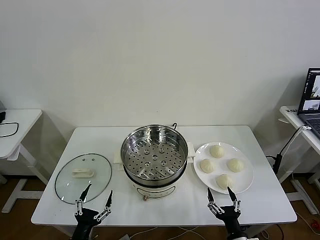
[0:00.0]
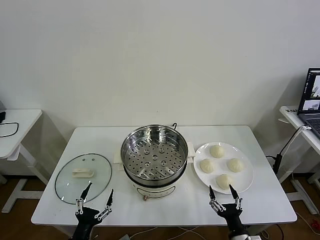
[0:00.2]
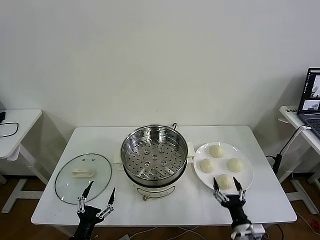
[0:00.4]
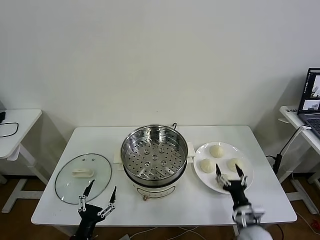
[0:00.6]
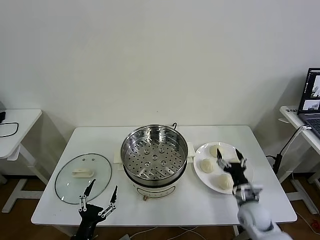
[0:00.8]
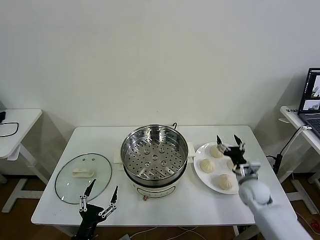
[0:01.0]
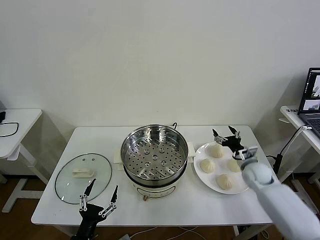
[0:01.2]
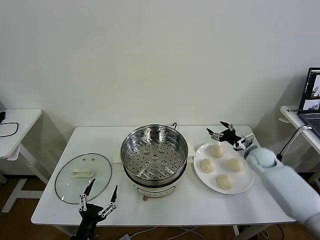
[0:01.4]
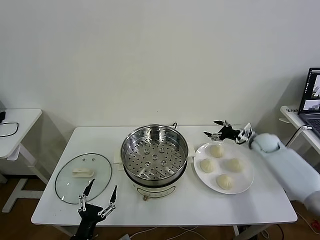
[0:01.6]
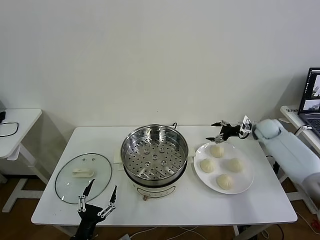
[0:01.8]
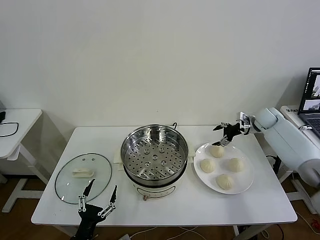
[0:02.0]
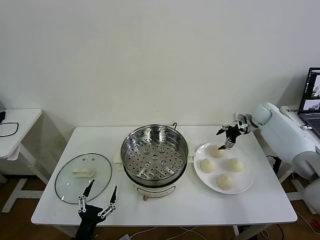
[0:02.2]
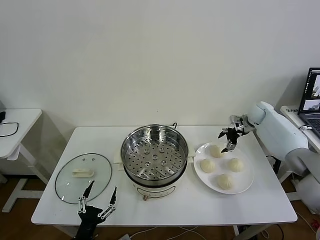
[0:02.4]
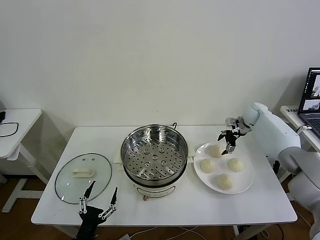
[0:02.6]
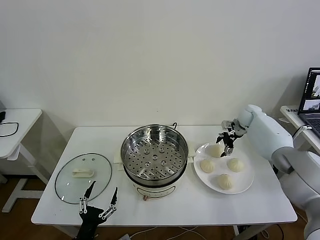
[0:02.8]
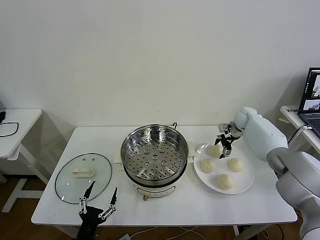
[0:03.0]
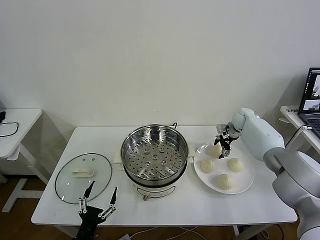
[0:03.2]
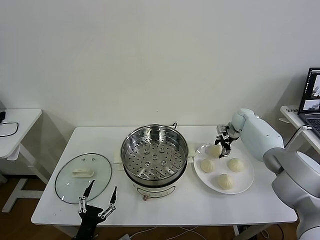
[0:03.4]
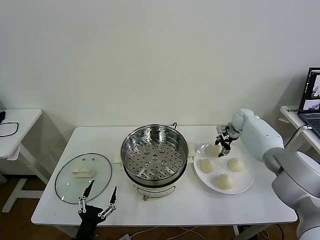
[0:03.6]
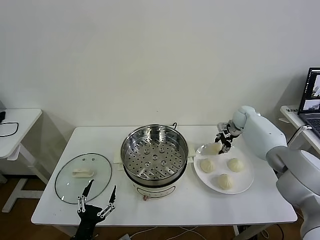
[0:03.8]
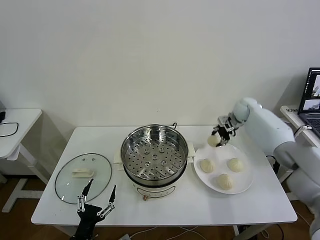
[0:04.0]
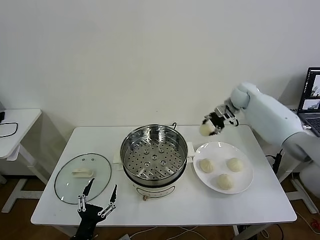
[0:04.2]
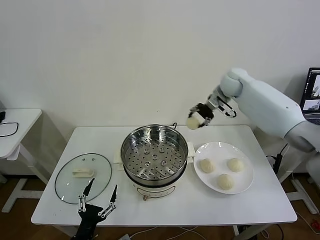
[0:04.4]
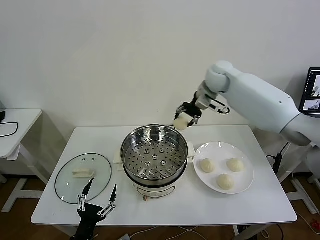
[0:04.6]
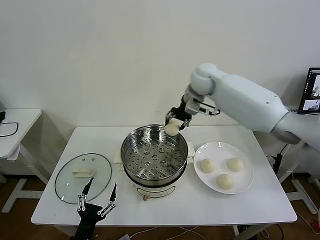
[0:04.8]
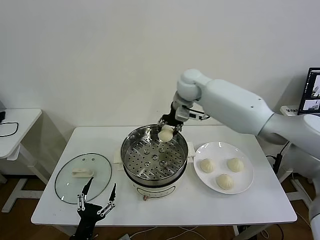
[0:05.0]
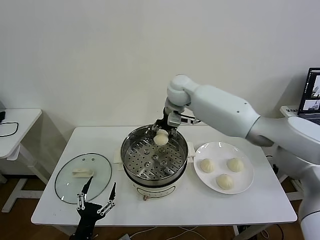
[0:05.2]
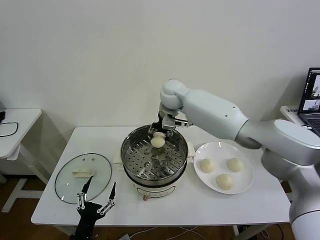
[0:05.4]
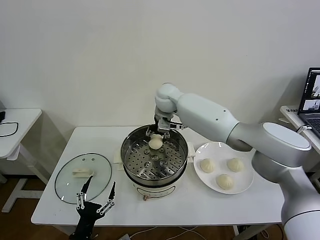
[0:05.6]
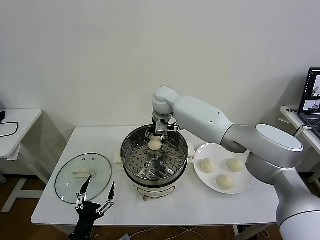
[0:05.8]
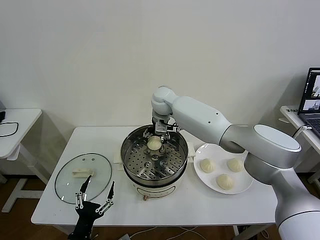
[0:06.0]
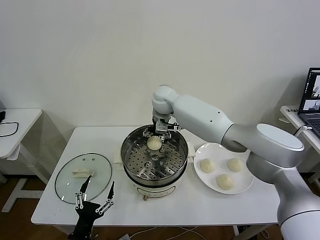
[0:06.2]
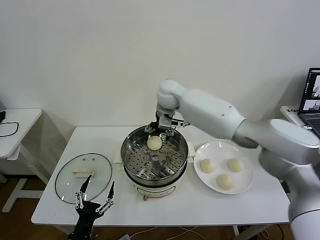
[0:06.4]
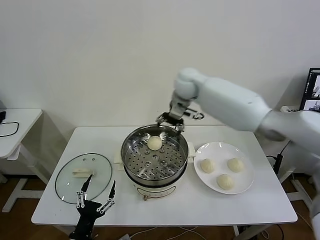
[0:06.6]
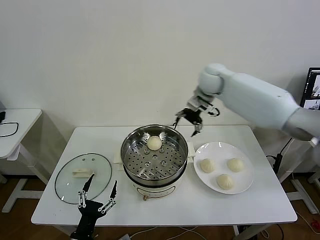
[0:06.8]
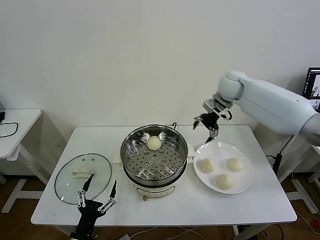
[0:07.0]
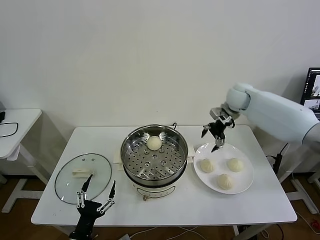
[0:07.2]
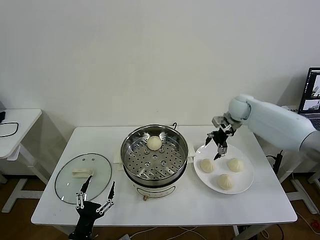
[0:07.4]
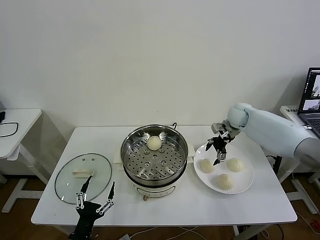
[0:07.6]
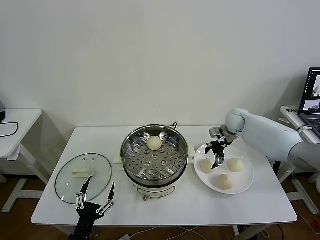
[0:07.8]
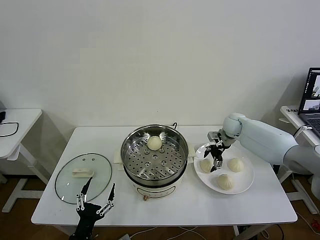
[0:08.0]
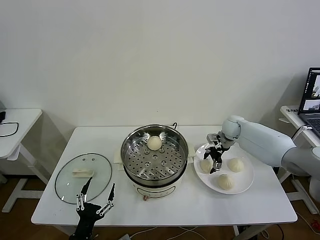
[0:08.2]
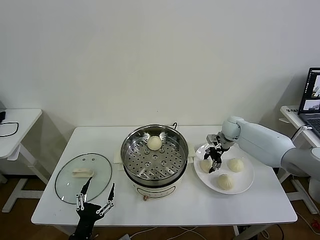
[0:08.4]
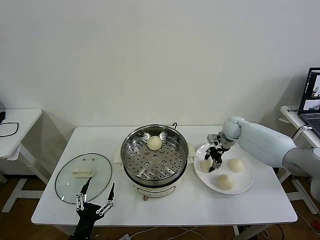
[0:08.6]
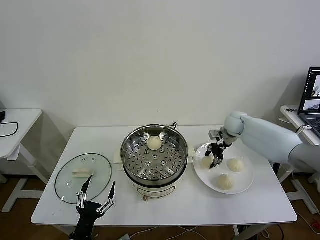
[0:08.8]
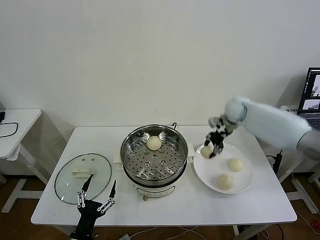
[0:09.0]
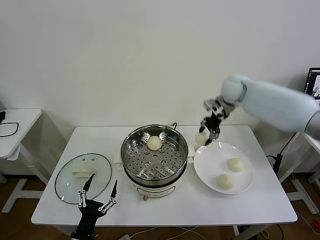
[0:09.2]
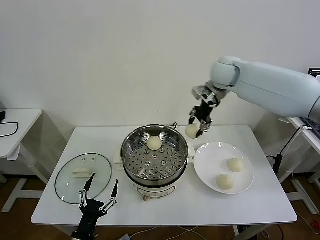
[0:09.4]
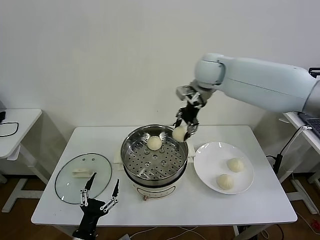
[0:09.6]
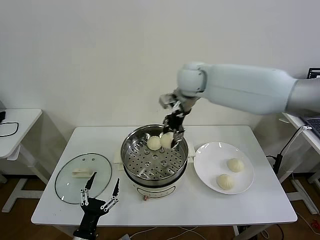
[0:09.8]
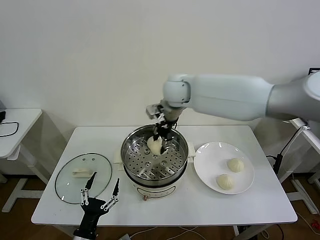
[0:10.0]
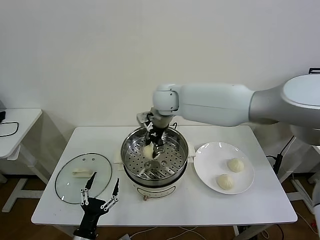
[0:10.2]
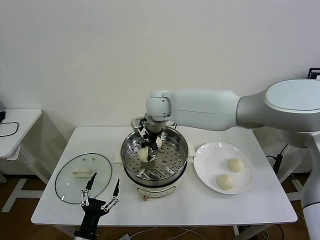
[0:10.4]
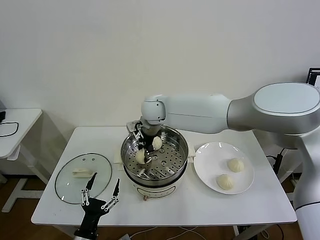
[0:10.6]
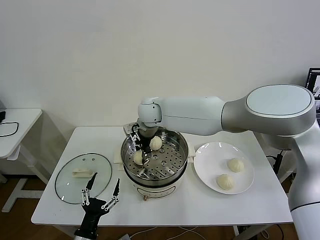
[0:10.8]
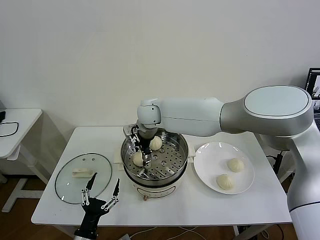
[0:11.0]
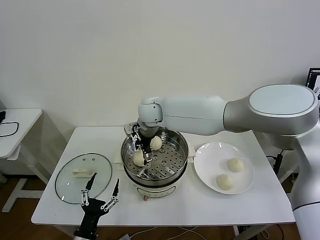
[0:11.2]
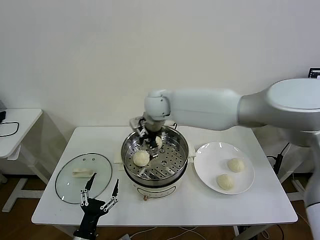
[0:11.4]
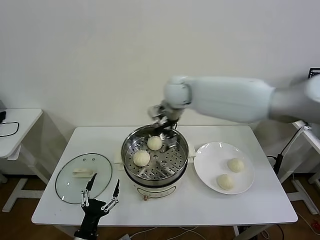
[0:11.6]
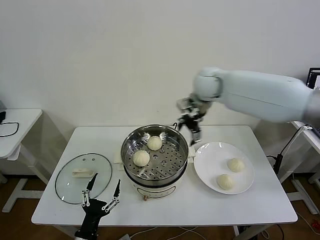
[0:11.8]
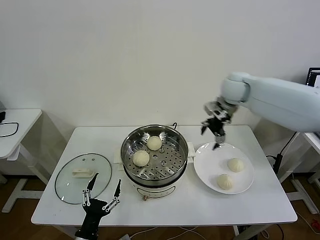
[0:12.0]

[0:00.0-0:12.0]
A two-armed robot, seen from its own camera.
Task of the whole recording: take steamed baozi put them in steamer then cover it.
Step, 0:00.0 to 0:03.6: Grasp the baozi in the plate with right gripper.
Step, 0:03.8 to 0:06.4: Place the baozi on the steamer with right gripper.
Step, 0:06.6 to 0:08.4: Grasp the baozi in the plate with right gripper.
Step, 0:08.6 to 0:11.6: Place the baozi on the steamer with right gripper.
0:01.6 to 0:03.0: The right gripper travels forward and to the left by about 10 cm.
0:03.0 to 0:04.4: The right gripper moves upward and to the left, approximately 25 cm, and closes up.
0:04.4 to 0:06.0: The right gripper is displaced to the left by about 20 cm, and opens its fingers.
0:06.0 to 0:07.6: The right gripper travels to the right by some 30 cm.
0:07.6 to 0:09.0: The right gripper is displaced upward by approximately 10 cm, and closes.
0:09.0 to 0:10.4: The right gripper is displaced to the left by roughly 30 cm.
0:10.4 to 0:12.0: The right gripper goes about 30 cm to the right, and opens up.

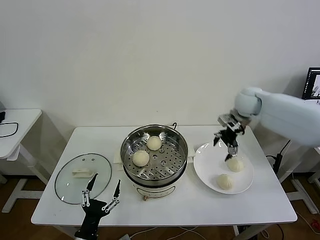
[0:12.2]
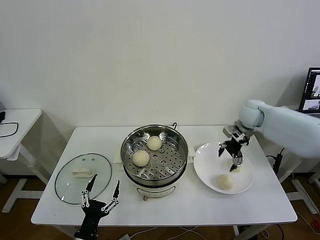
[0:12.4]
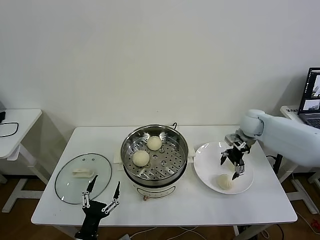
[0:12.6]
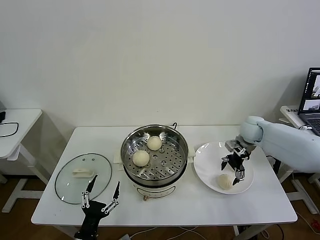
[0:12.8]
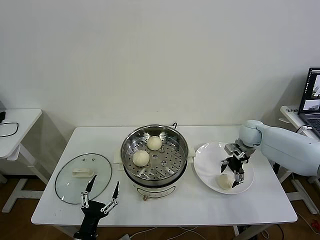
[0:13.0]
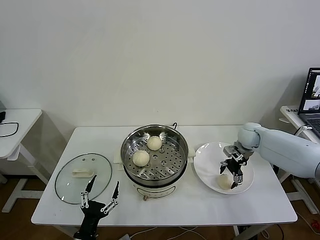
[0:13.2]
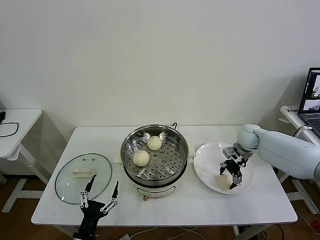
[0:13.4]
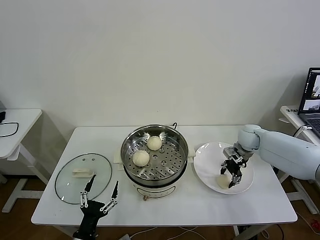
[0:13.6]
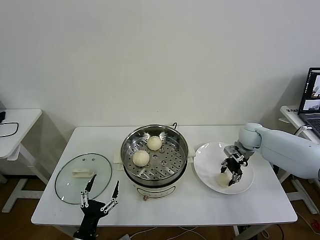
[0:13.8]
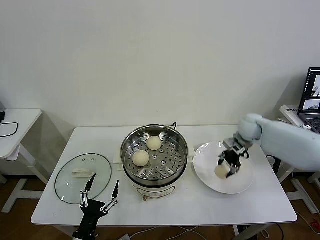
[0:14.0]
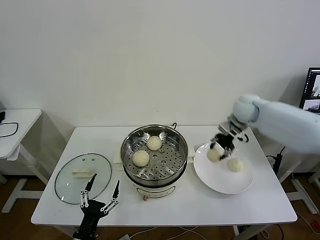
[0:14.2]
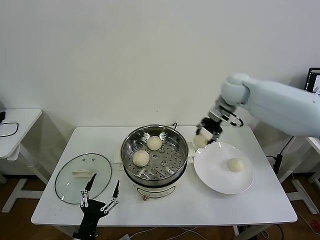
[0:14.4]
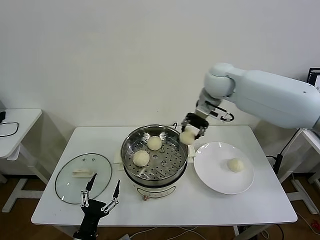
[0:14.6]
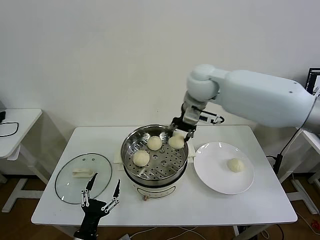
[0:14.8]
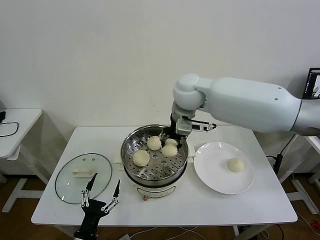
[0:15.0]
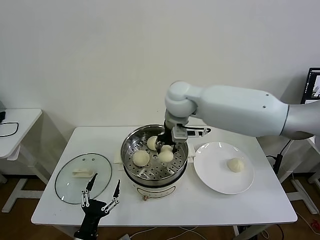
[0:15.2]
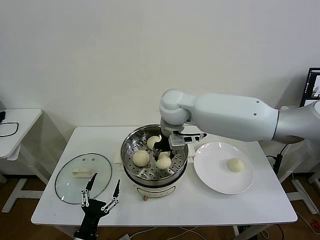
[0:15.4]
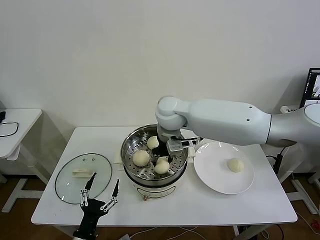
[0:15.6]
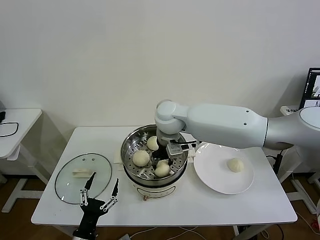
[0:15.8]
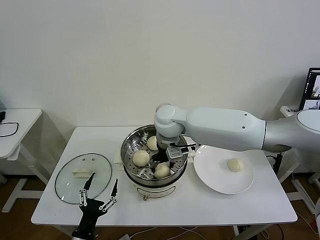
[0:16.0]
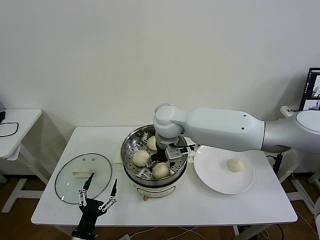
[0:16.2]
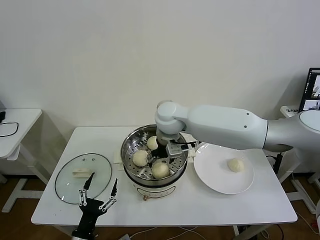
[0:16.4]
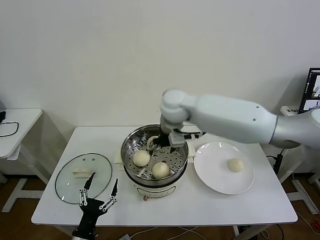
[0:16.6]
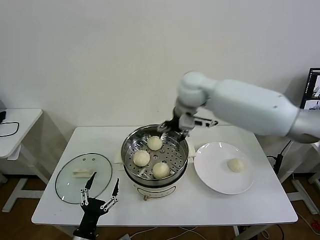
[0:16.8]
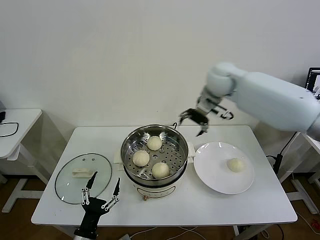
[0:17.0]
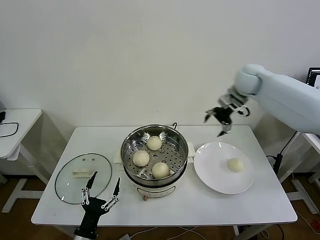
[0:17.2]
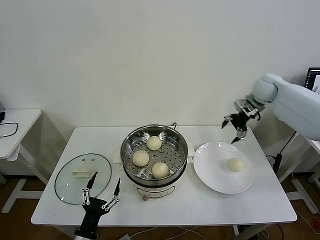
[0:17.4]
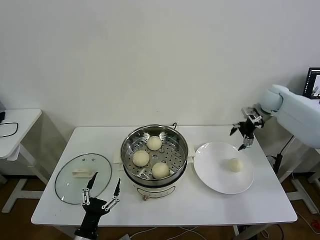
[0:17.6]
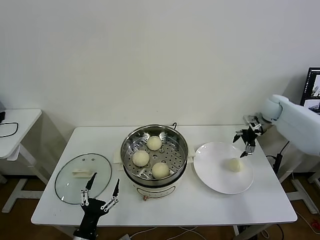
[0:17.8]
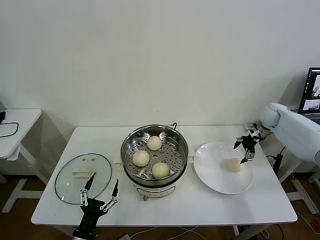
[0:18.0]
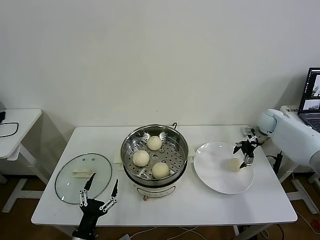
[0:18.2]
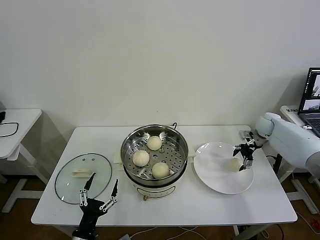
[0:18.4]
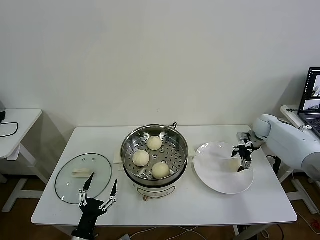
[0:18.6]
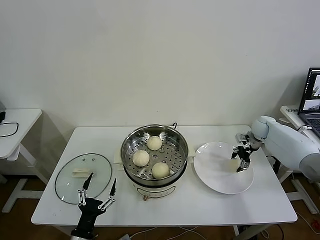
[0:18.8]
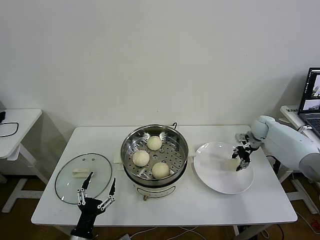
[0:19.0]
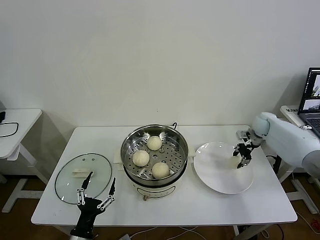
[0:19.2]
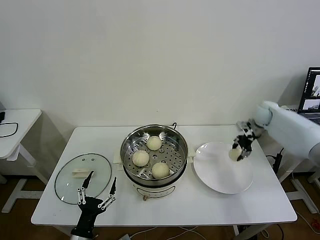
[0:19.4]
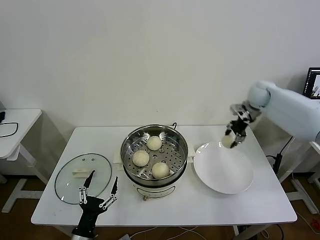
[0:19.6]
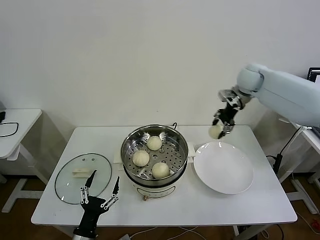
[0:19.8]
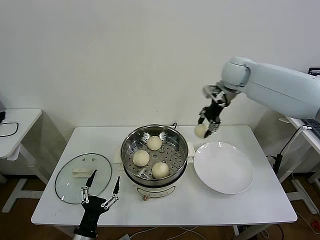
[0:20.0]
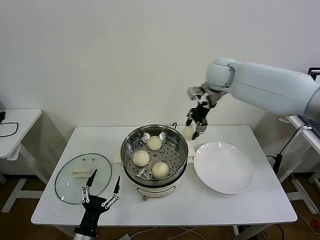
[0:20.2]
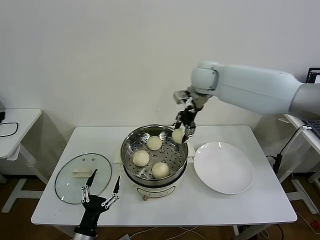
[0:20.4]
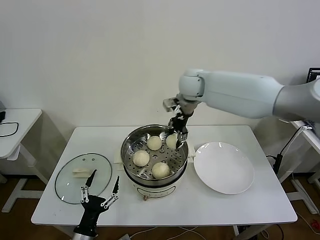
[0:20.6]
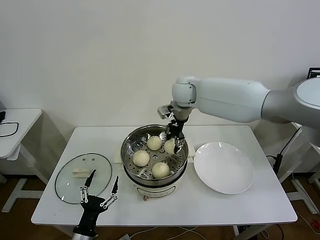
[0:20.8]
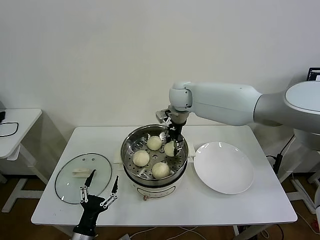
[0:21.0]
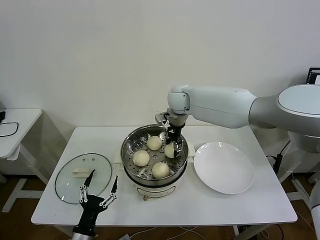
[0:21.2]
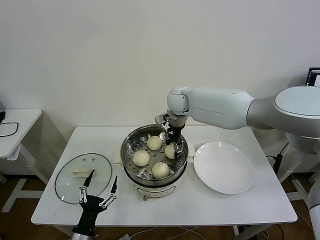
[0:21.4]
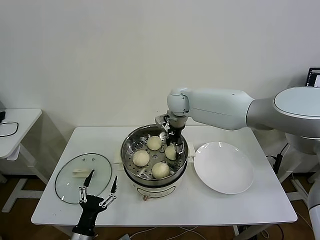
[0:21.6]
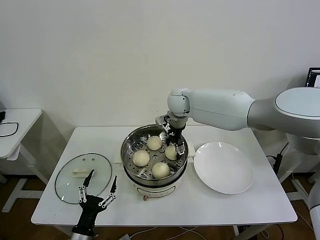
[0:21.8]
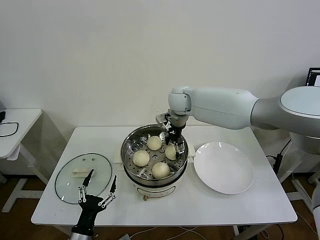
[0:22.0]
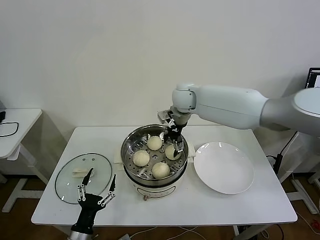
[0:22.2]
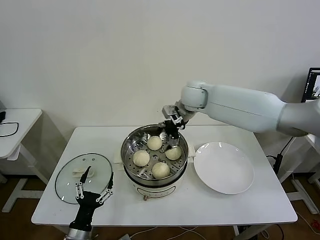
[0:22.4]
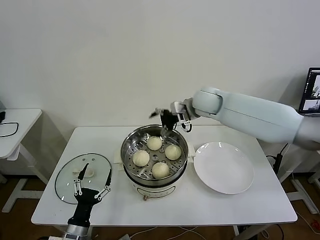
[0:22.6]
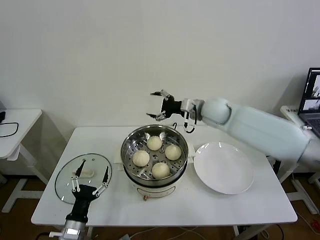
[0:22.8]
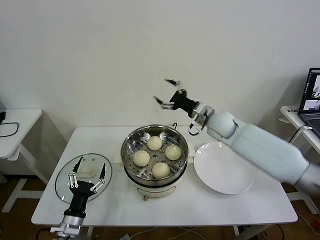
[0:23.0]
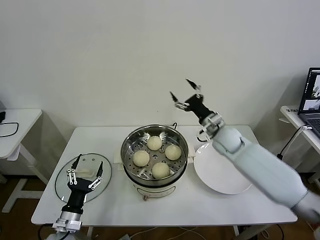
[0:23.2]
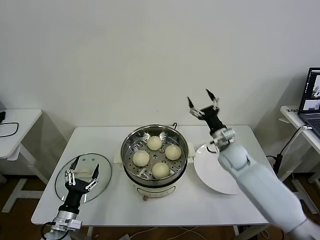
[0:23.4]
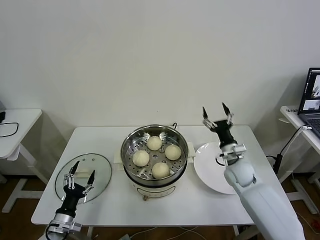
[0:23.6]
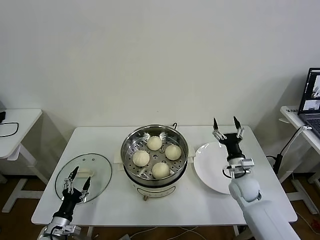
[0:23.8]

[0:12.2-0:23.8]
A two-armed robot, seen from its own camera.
Task of the whole recording: take steamed baozi put them in steamer then cover it.
Step, 0:12.2 to 0:13.6: Grasp the baozi in the plate with right gripper.
Step, 0:14.0 to 0:16.6: Place the baozi on the steamer with right gripper.
Step, 0:16.8 to 0:19.2: Grasp the baozi in the plate with right gripper.
Step, 0:19.4 to 0:22.0: Place the baozi on the steamer with right gripper.
0:12.2 to 0:13.6: The right gripper heads downward, covering roughly 15 cm, and closes.
0:13.6 to 0:15.0: The right gripper shifts roughly 35 cm to the left and upward.
0:15.0 to 0:16.6: The right gripper reaches roughly 10 cm downward, then returns, and opens up.
0:16.6 to 0:18.0: The right gripper is displaced to the right by some 40 cm.
0:18.0 to 0:19.4: The right gripper goes downward and returns, some 5 cm each way, and closes.
0:19.4 to 0:21.0: The right gripper heads to the left, covering roughly 35 cm.
0:21.0 to 0:22.4: The right gripper opens up.
0:22.4 to 0:23.8: The left gripper heads to the left, covering about 10 cm, while the right gripper travels downward, to the right and backward by some 40 cm.
